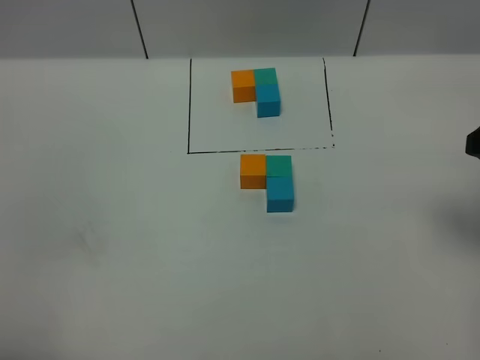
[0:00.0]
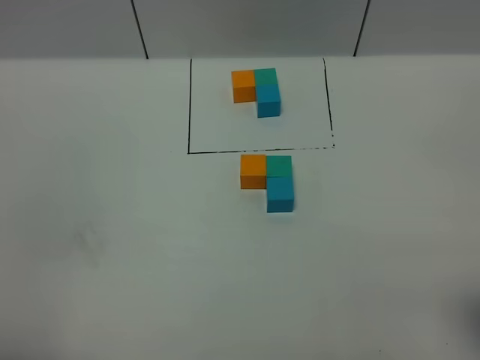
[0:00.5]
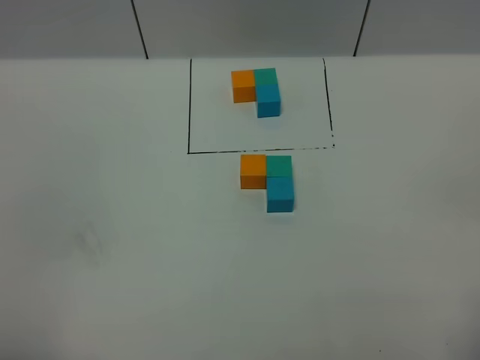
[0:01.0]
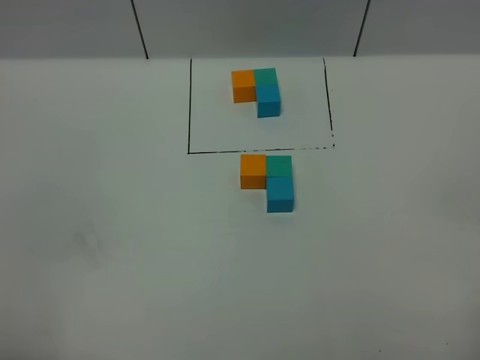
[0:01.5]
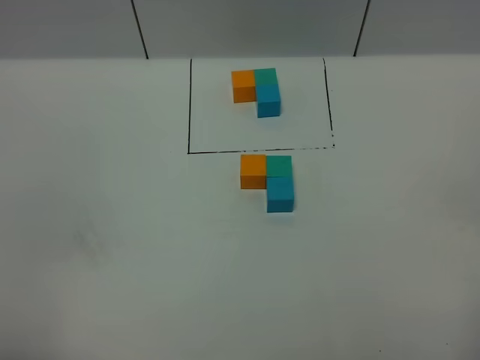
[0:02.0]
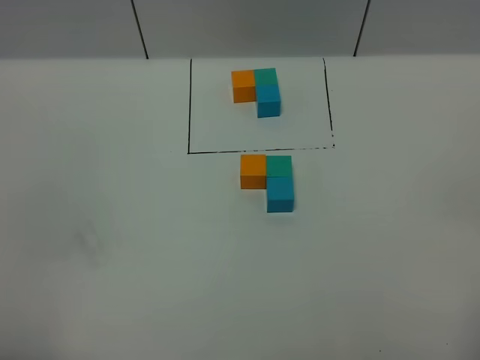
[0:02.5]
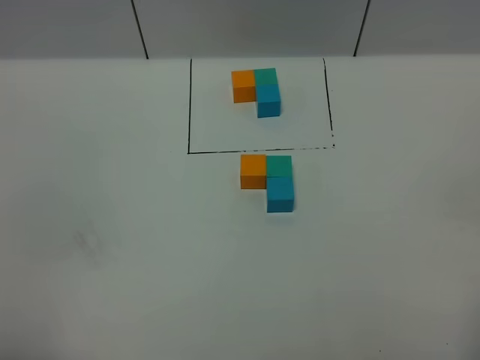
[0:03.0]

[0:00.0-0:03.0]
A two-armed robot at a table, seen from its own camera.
Task of the whole recording: According to the building block template in front, assemble the scattered blocks together.
0:01.5 to 0:03.0: Neither gripper changes place.

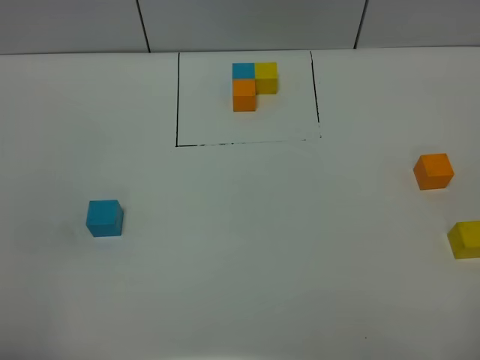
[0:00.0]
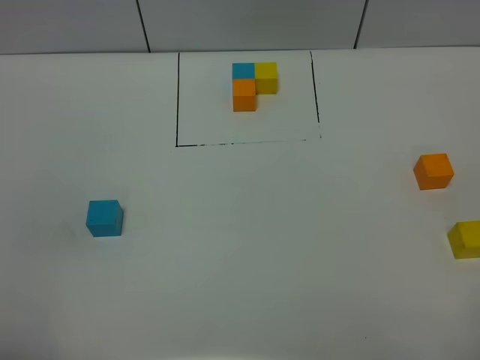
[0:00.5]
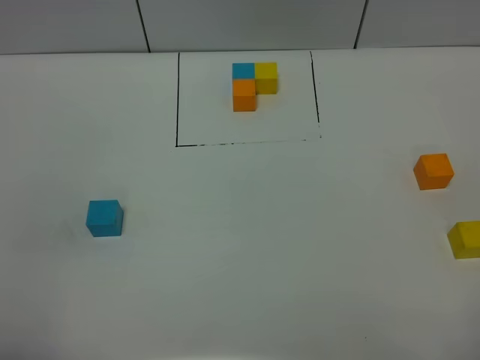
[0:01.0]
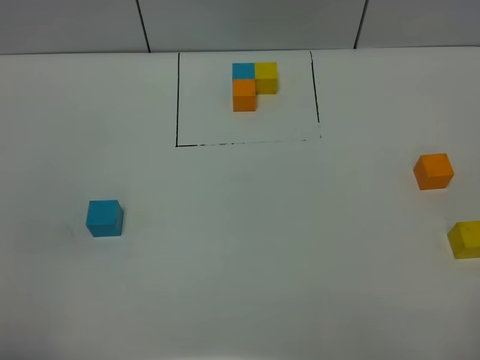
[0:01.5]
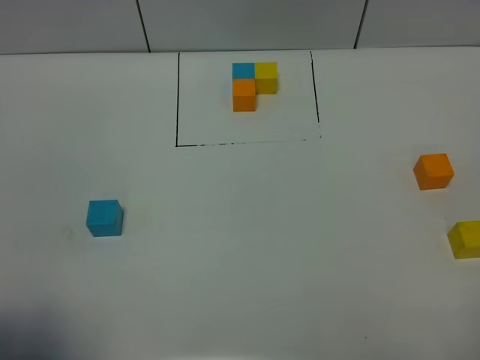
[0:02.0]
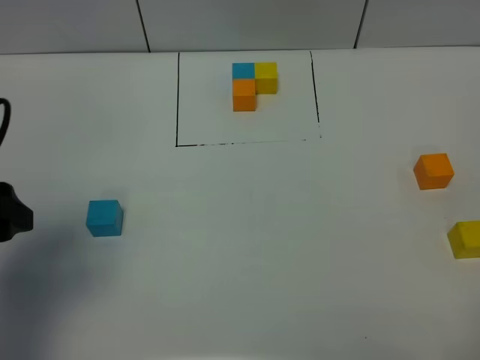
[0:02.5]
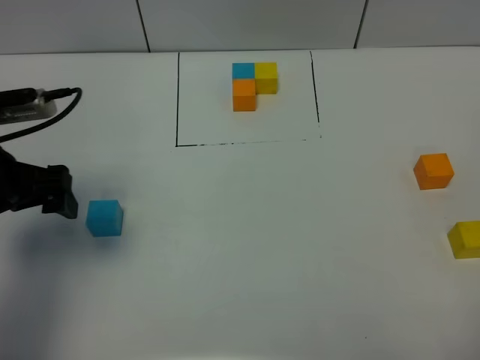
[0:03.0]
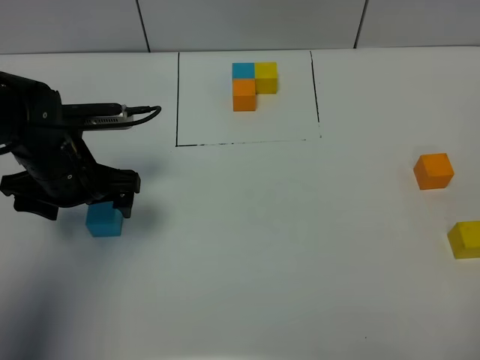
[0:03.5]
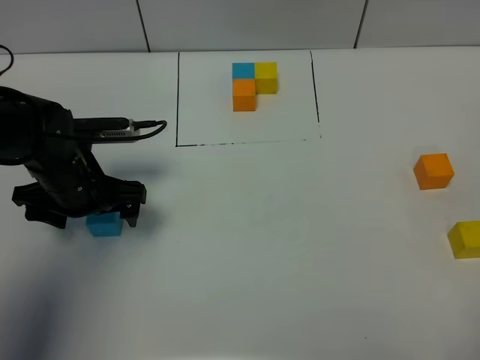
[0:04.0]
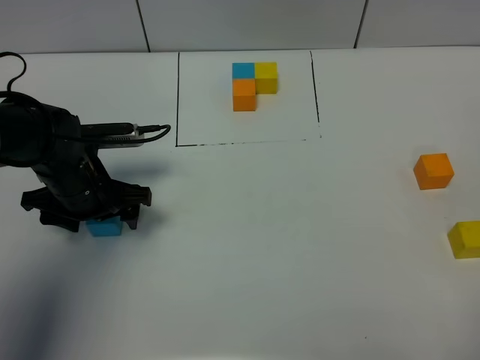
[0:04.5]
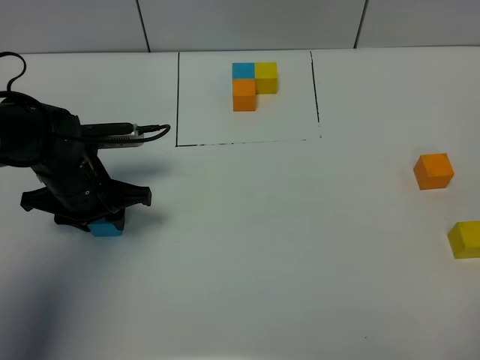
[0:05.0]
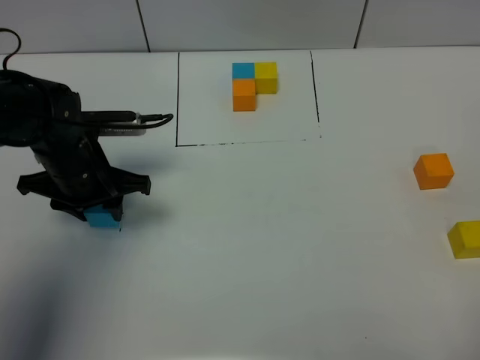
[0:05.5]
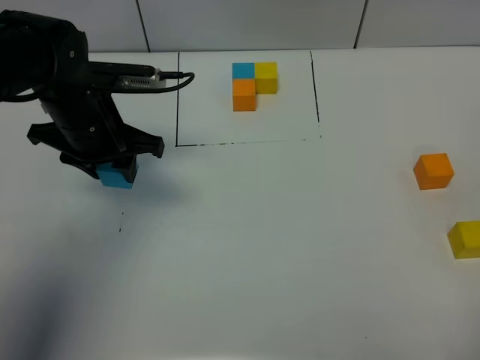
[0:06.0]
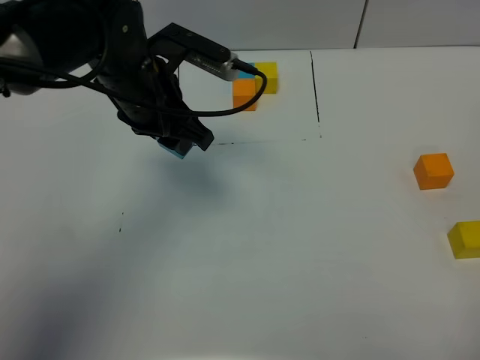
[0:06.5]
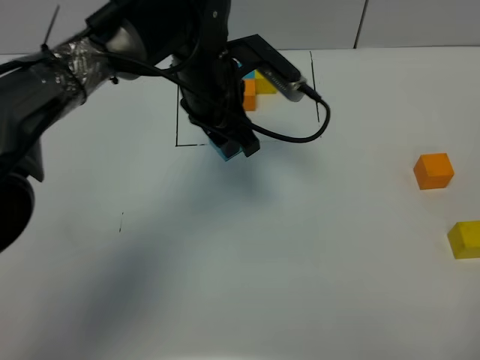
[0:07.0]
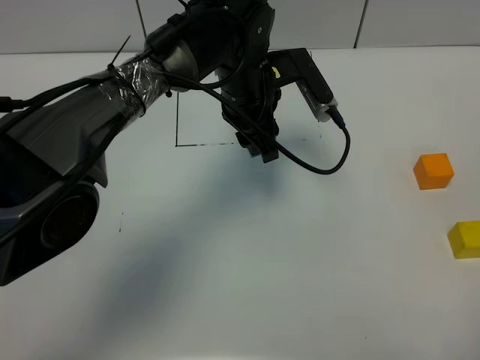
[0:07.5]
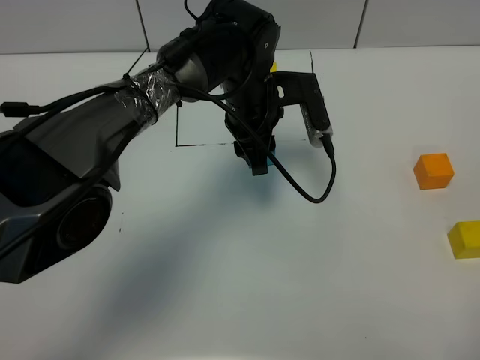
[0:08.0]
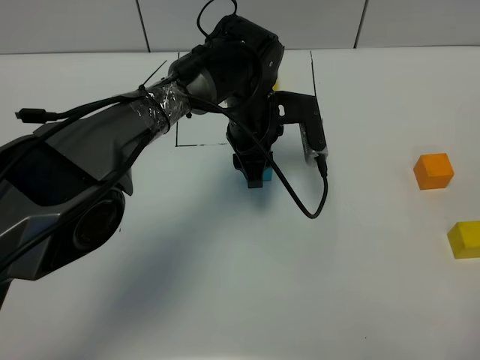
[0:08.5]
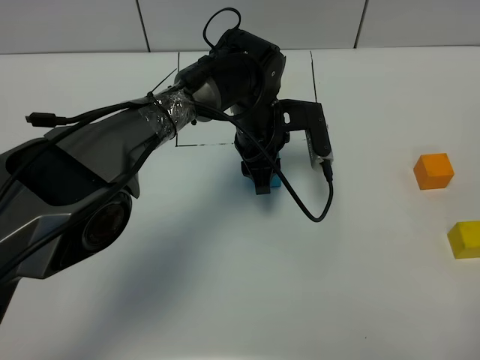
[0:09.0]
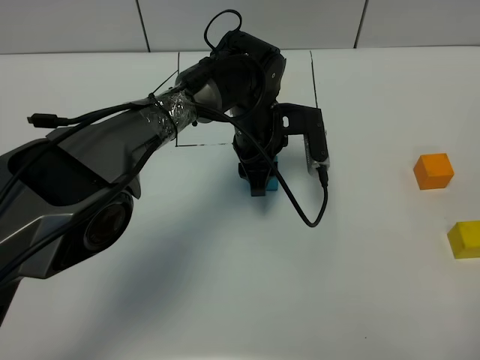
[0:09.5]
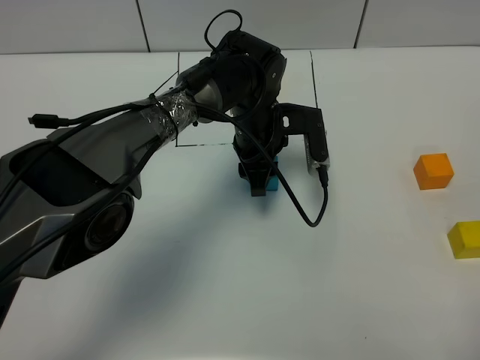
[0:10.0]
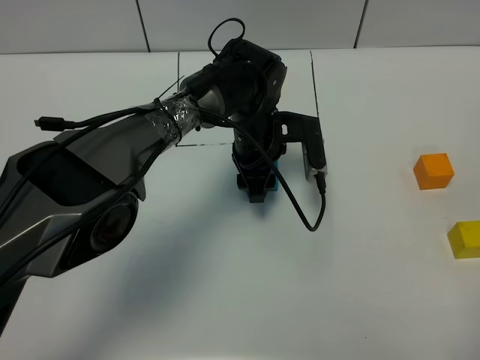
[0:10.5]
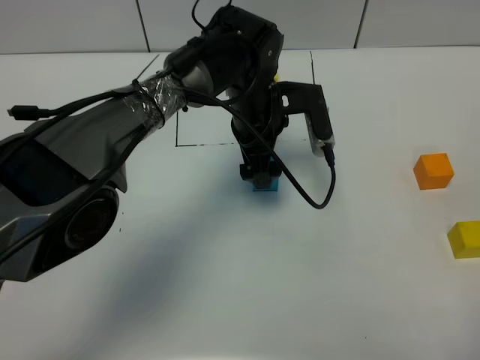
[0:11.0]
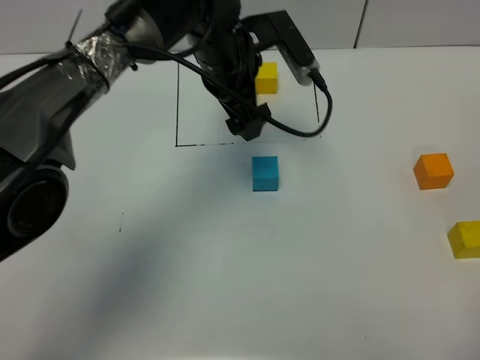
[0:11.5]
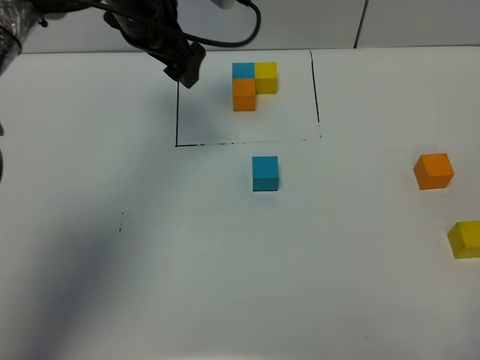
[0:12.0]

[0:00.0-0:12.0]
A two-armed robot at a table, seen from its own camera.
Task of the whole recording: According to the building block template in front, assemble the scattered blocks together.
Step, 0:00.0 to 0:10.5: Put the blue build block in the center of the table.
0:00.0 to 0:02.0: The grippers move only a little.
0:02.0 to 0:04.0: The left gripper moves forward and downward, about 30 cm.
0:04.0 to 0:06.0: The left gripper heads upward, covering roughly 5 cm, and closes.
0:06.0 to 0:08.0: The left gripper goes approximately 20 cm to the right.
0:08.0 to 0:10.0: There are only small adjustments of the grippers.
0:10.0 to 0:12.0: The left gripper moves upward and to the left, about 20 cm, and opens.

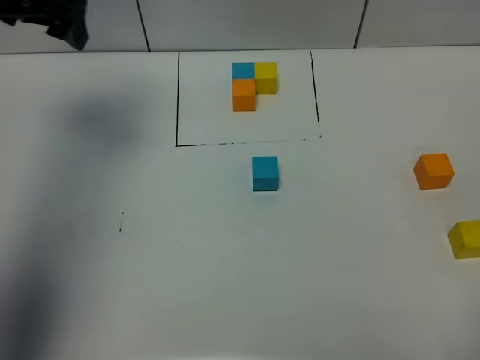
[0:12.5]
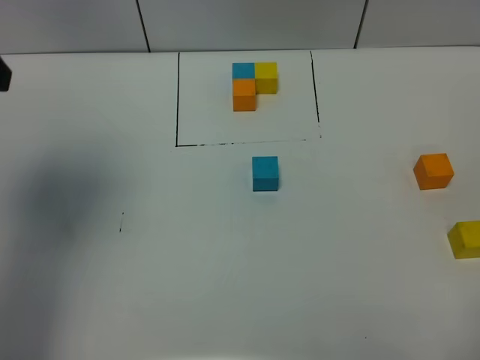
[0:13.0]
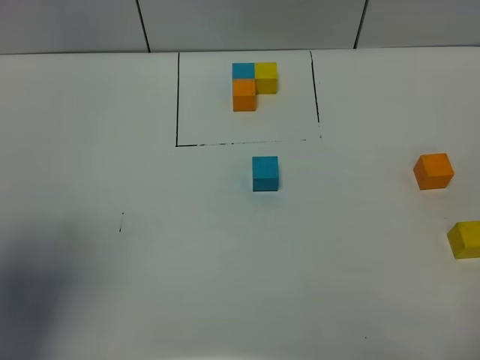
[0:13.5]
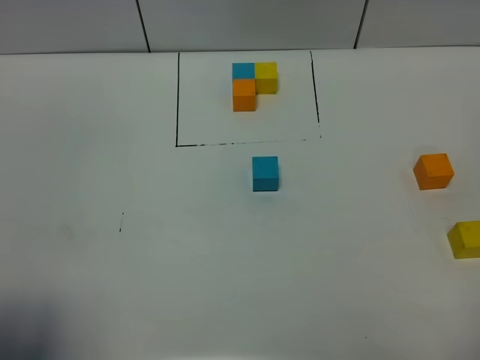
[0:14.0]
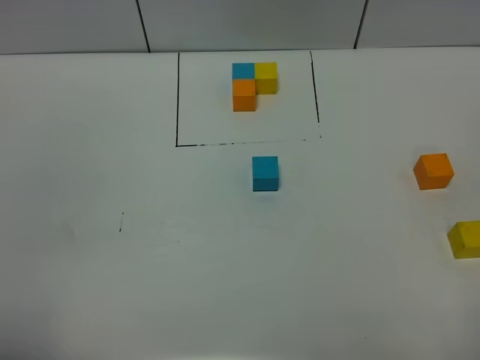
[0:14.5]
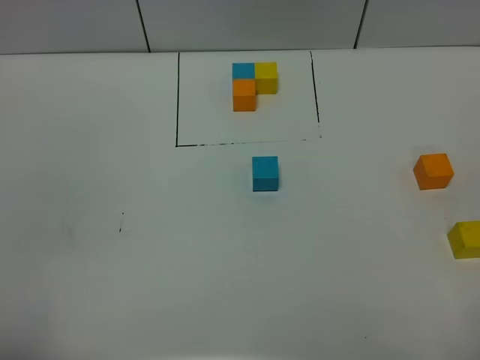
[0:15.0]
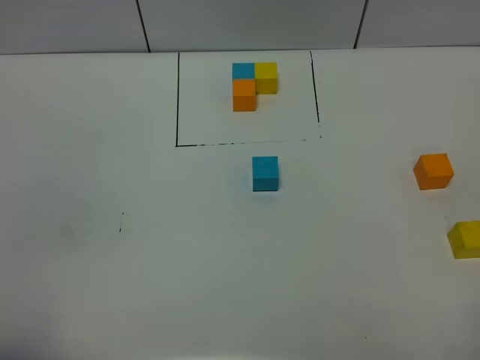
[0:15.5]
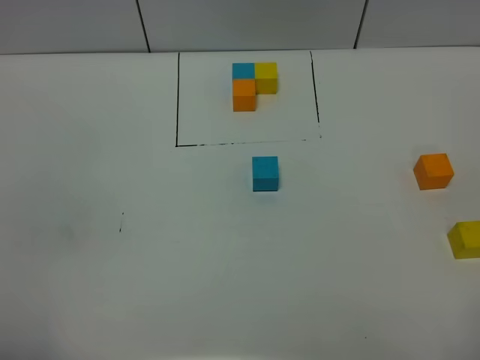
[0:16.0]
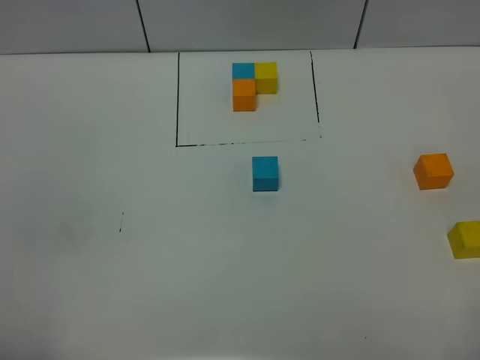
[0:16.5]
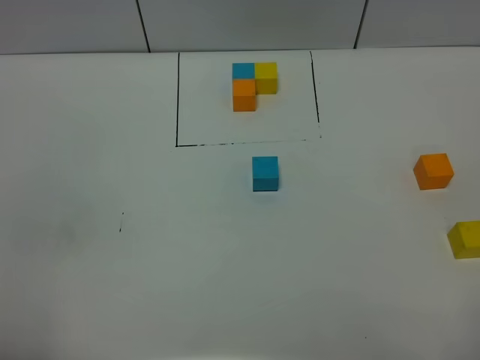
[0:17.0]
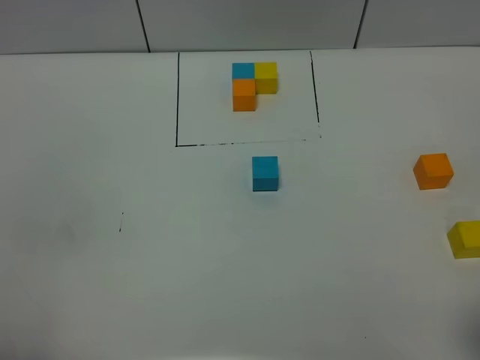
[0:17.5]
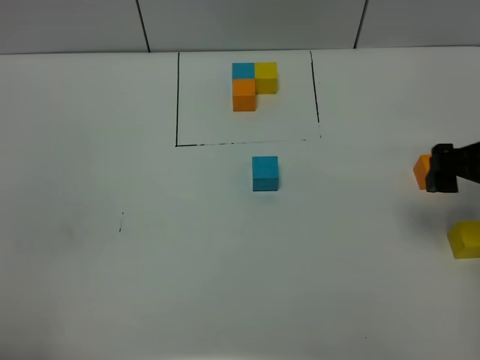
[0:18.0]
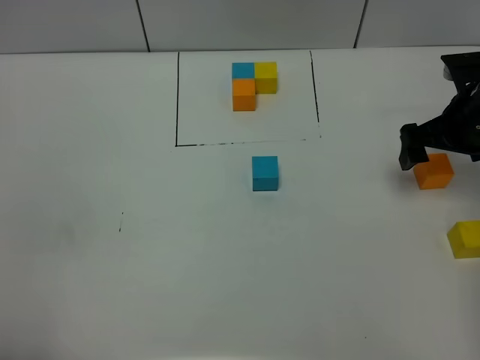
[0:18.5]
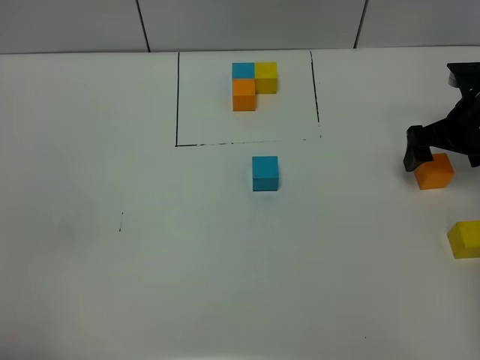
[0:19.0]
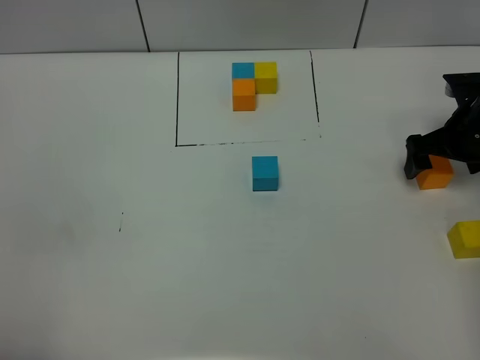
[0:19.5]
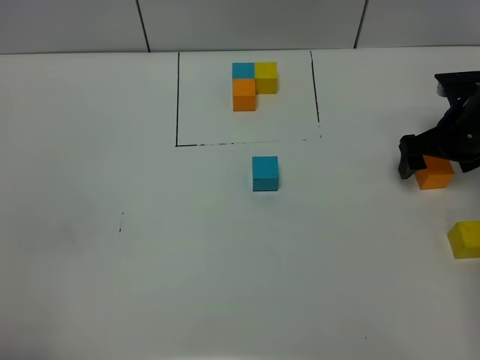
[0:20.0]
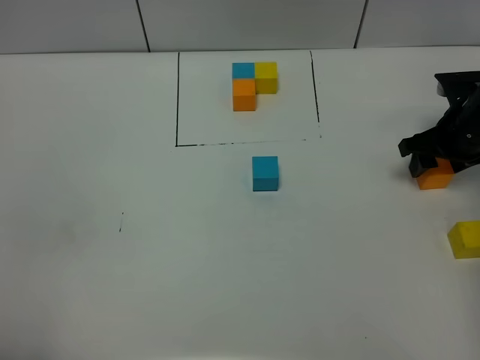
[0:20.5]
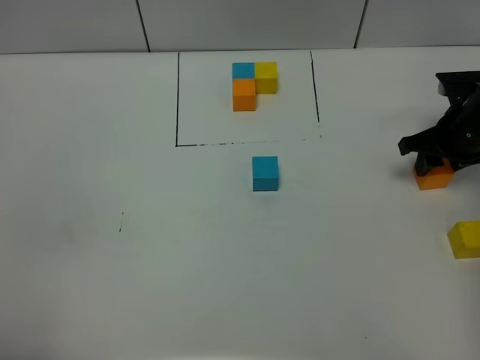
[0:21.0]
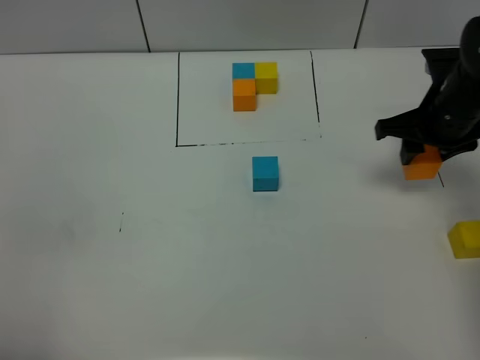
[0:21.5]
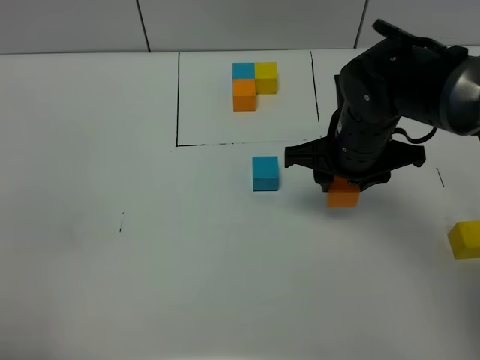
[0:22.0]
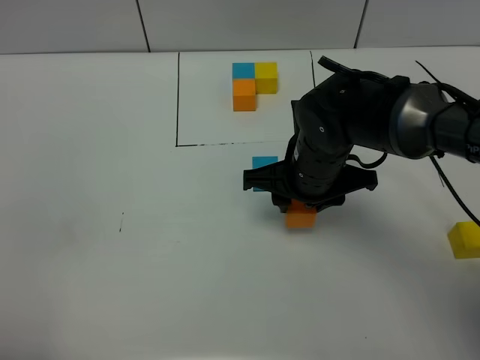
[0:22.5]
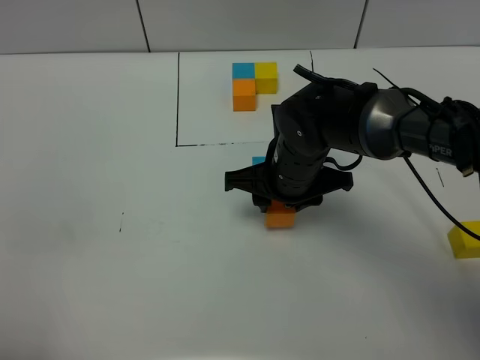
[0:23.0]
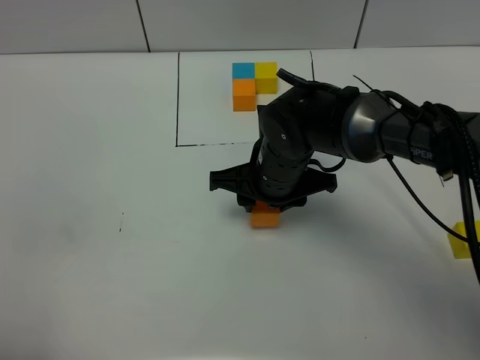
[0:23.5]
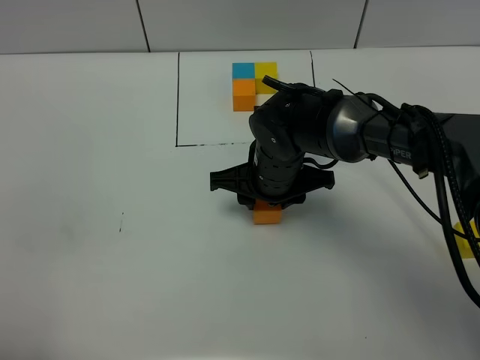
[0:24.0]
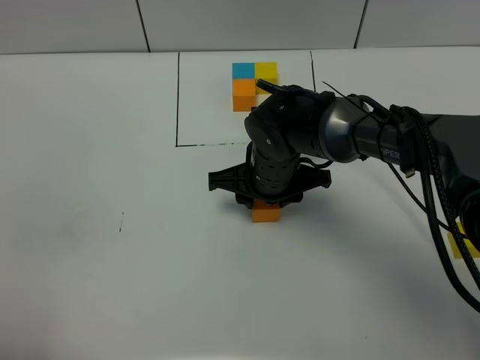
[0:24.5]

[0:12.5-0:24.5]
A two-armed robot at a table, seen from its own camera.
Task of the whole recording: According to the building block template in front, assemble the scattered blocks together.
0:12.5 to 0:14.5: The left gripper heads backward, covering about 40 cm.
0:16.5 to 0:18.5: The right gripper goes some 35 cm forward.
0:18.5 to 0:20.5: The right gripper goes some 5 cm downward, and closes.
0:20.5 to 0:22.5: The right gripper moves to the left, roughly 25 cm.
0:22.5 to 0:24.5: The right gripper ends up some 5 cm from where it was.
